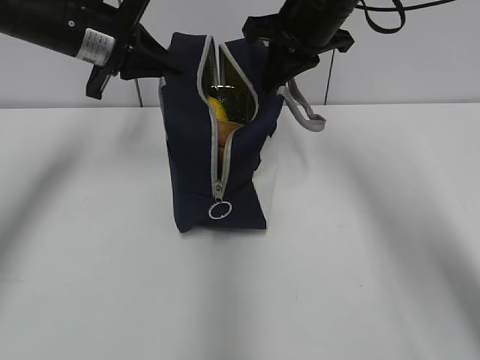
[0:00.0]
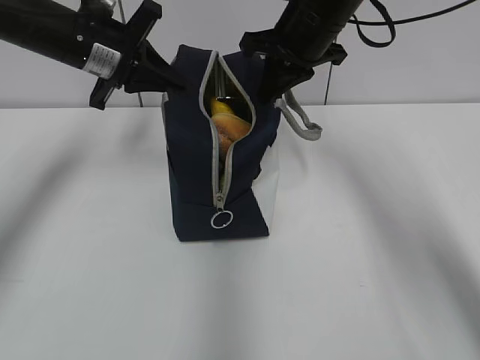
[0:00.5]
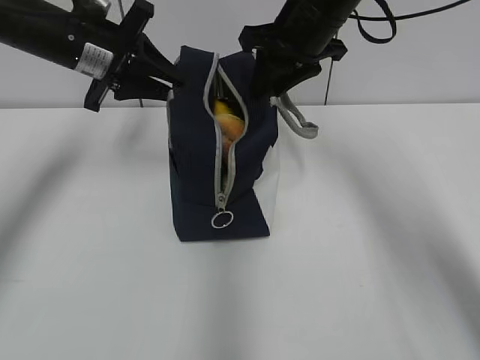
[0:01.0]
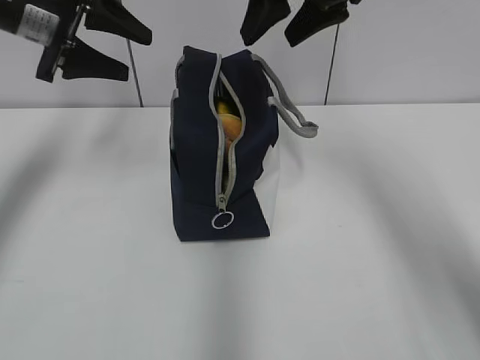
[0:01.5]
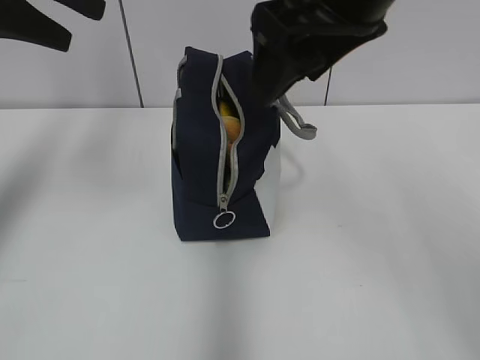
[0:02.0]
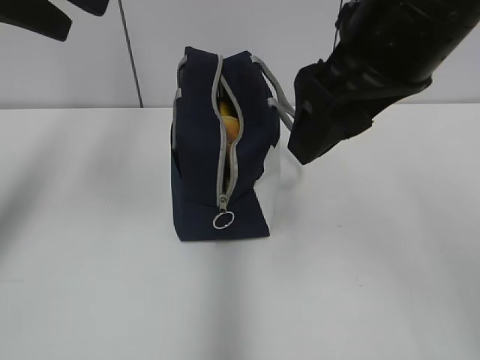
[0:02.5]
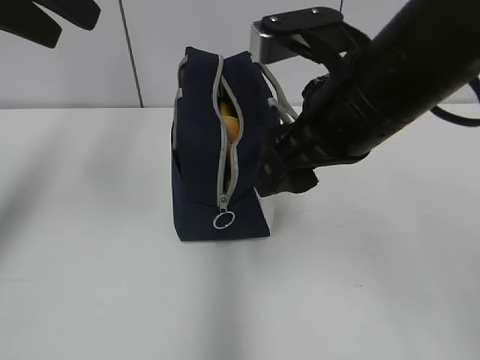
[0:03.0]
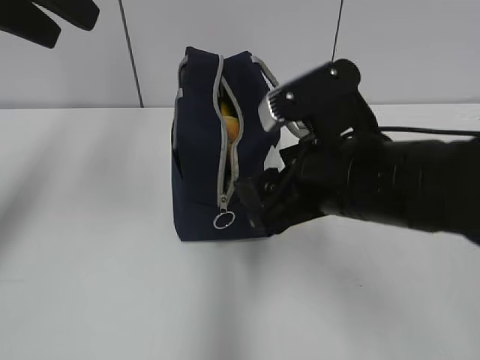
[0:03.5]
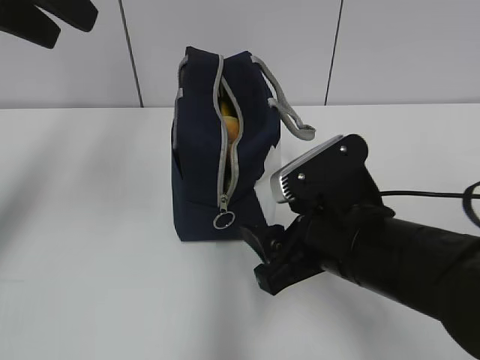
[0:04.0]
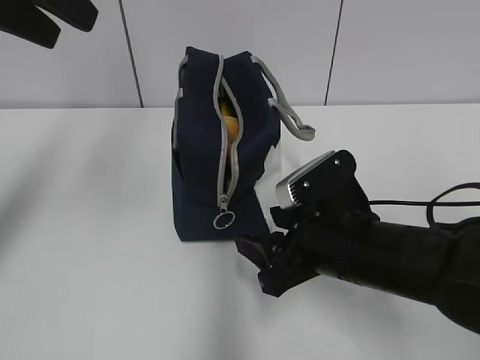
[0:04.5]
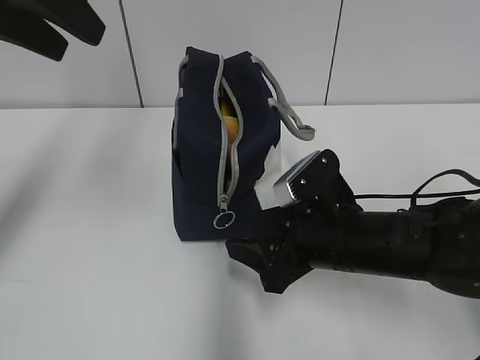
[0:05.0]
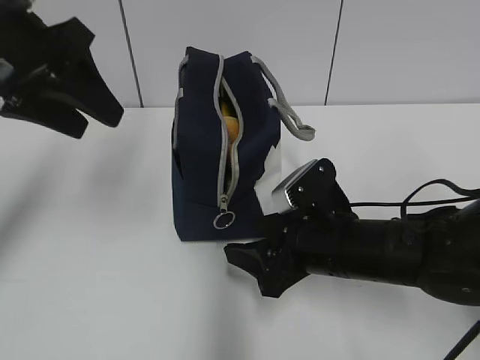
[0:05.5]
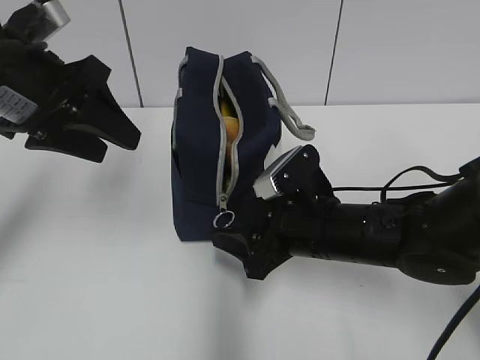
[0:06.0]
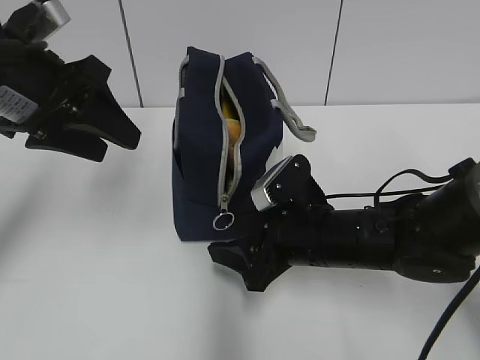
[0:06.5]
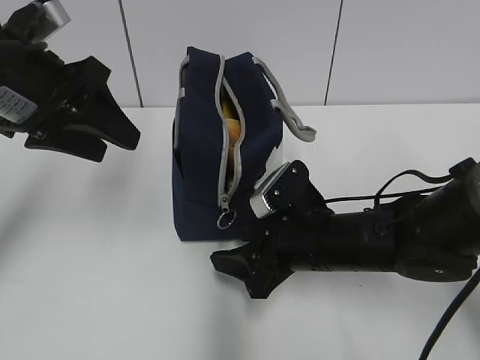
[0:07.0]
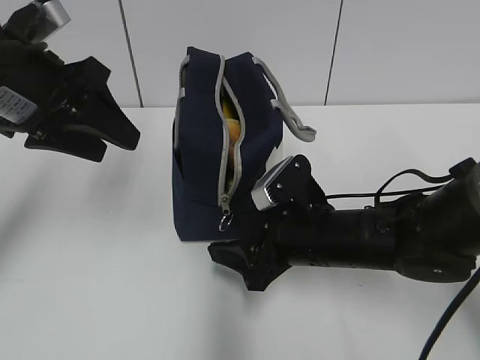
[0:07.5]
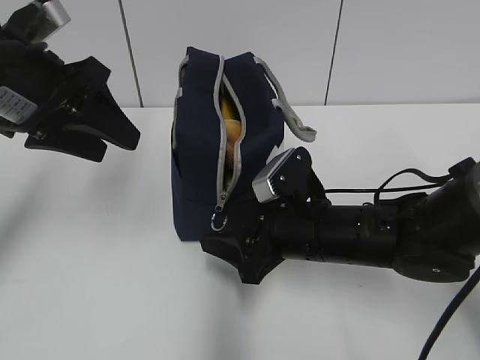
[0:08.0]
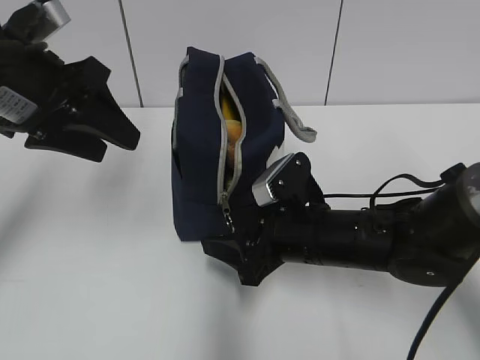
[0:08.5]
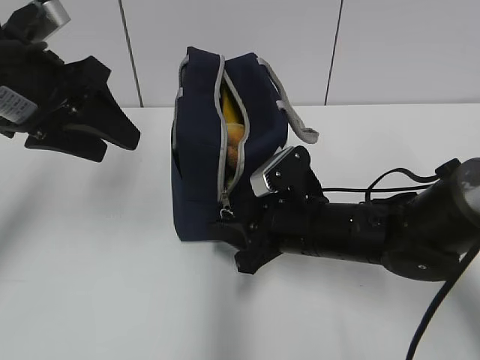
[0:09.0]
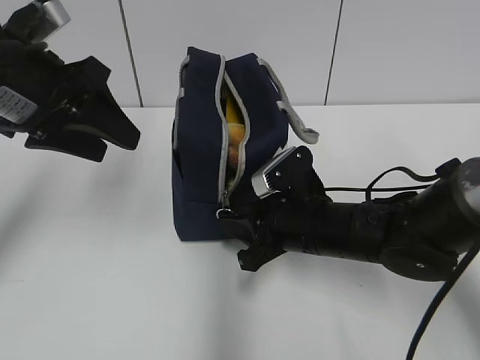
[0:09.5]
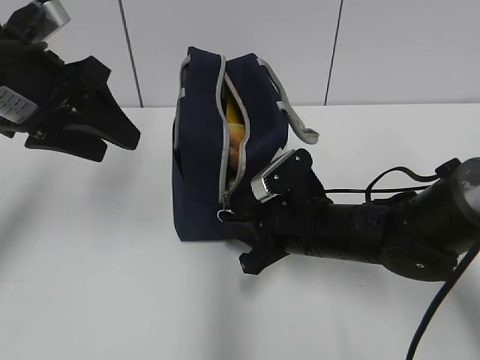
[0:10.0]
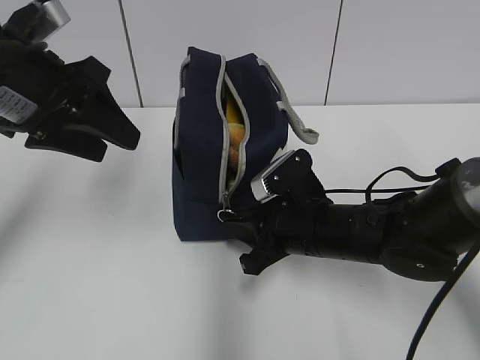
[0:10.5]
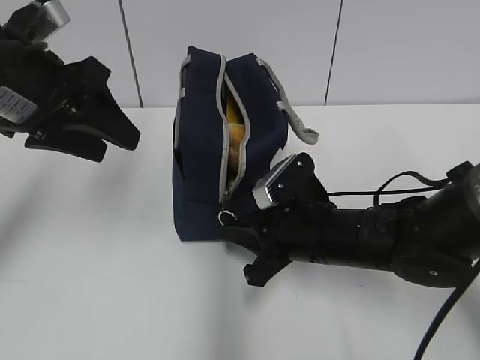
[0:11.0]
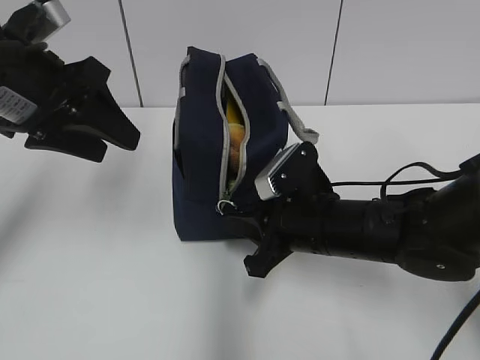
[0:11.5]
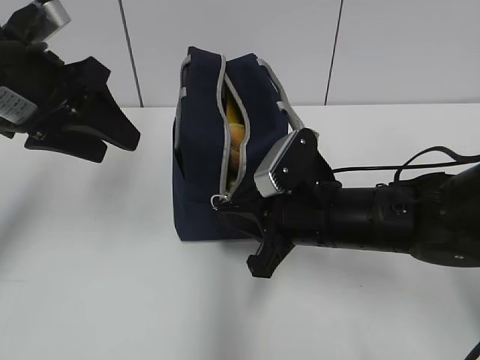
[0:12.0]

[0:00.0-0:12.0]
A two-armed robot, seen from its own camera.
0:00.0 to 0:02.0: The right gripper goes approximately 15 cm backward and upward, and opens its fingers; the left gripper moves upward, backward and to the left, approximately 15 cm, and opens.
0:02.0 to 0:04.0: The right gripper travels downward by roughly 20 cm; the left gripper shifts by some 5 cm.
0:04.0 to 0:06.0: The right gripper is displaced forward and downward by about 10 cm, while the left gripper is displaced downward by roughly 10 cm.
0:06.0 to 0:08.0: There are only small adjustments of the grippers.
0:08.0 to 0:10.0: The right gripper closes up.
0:10.0 to 0:12.0: There are only small adjustments of the grippers.

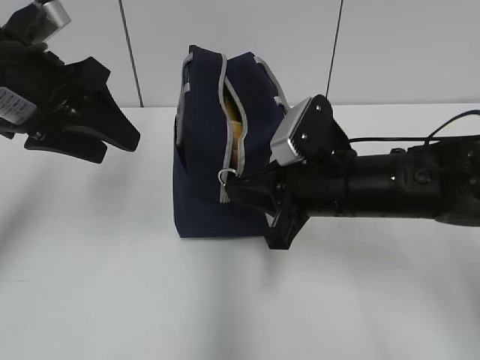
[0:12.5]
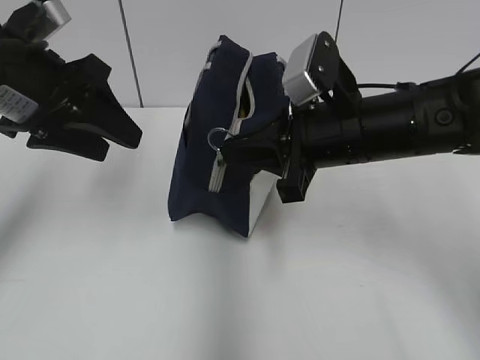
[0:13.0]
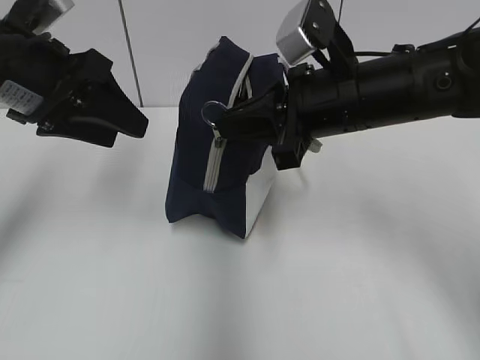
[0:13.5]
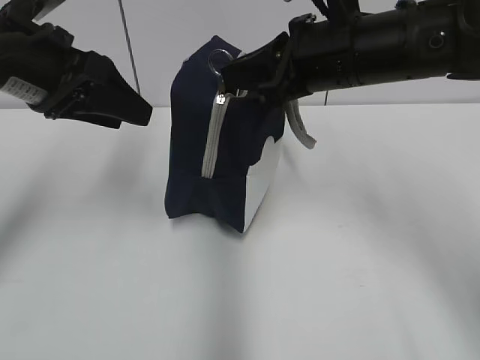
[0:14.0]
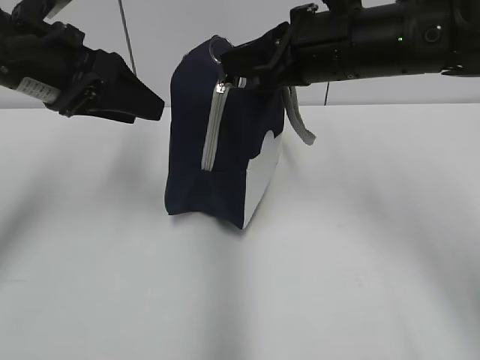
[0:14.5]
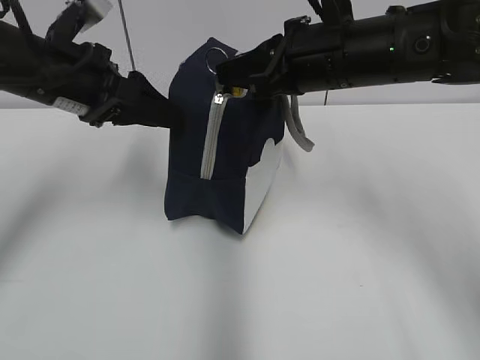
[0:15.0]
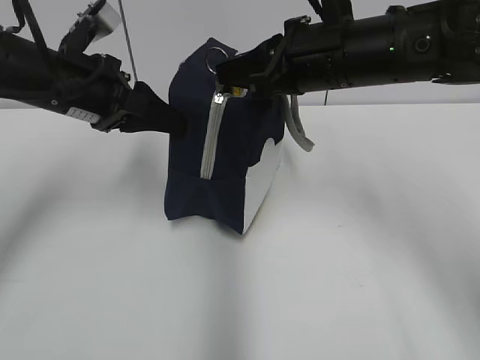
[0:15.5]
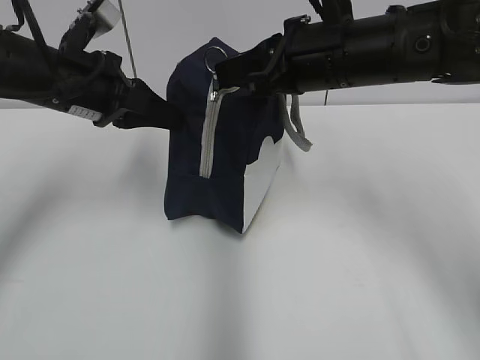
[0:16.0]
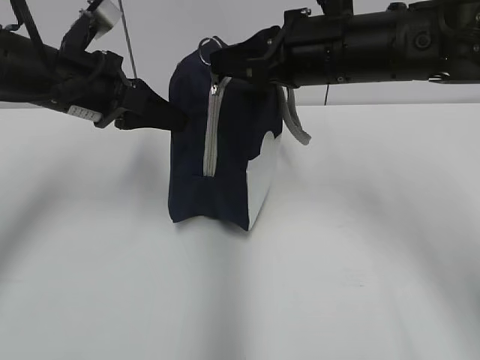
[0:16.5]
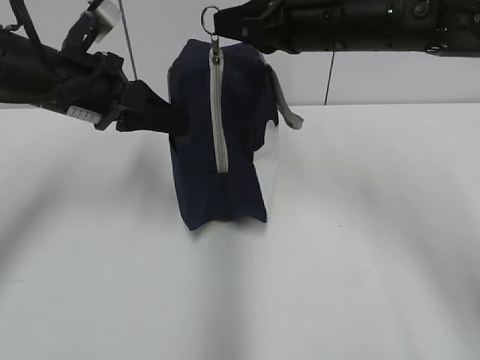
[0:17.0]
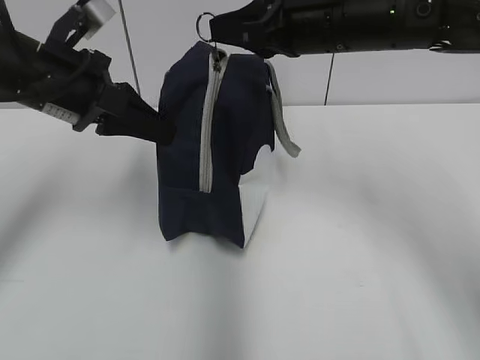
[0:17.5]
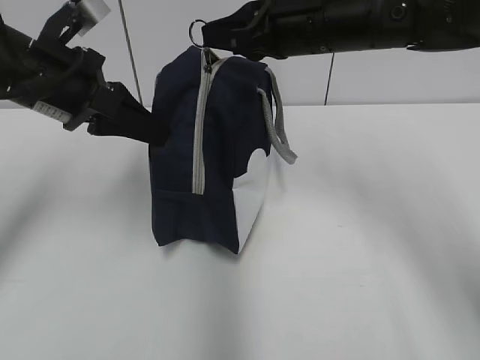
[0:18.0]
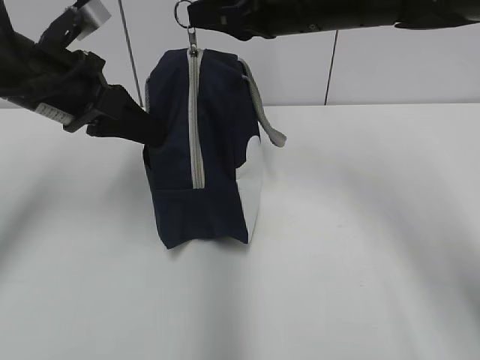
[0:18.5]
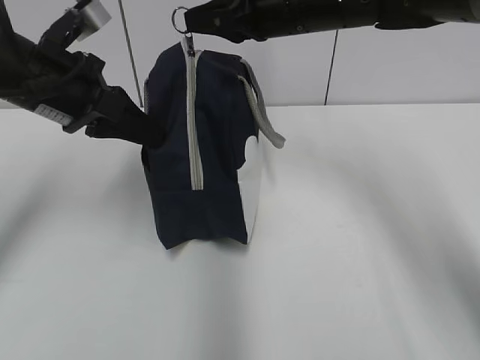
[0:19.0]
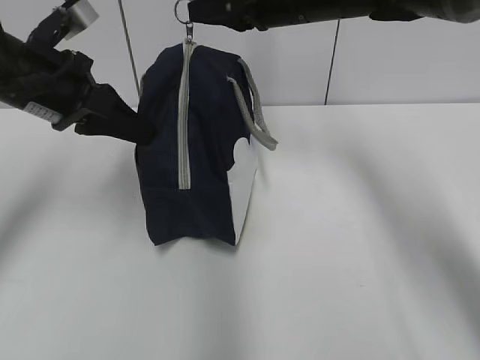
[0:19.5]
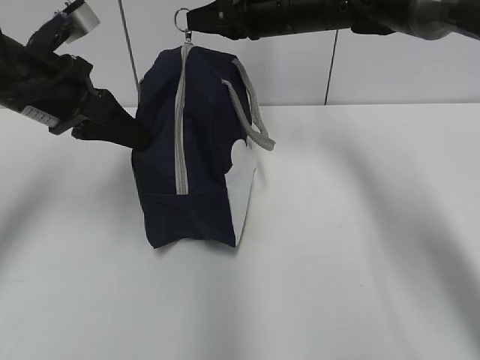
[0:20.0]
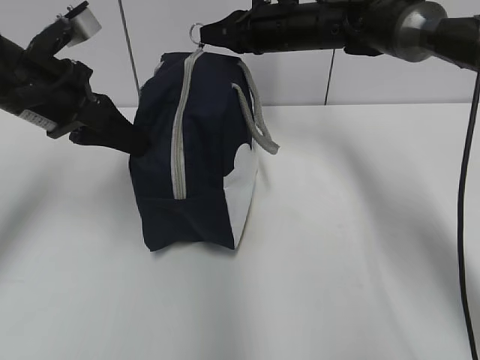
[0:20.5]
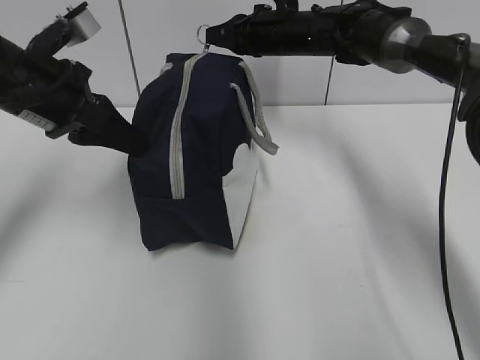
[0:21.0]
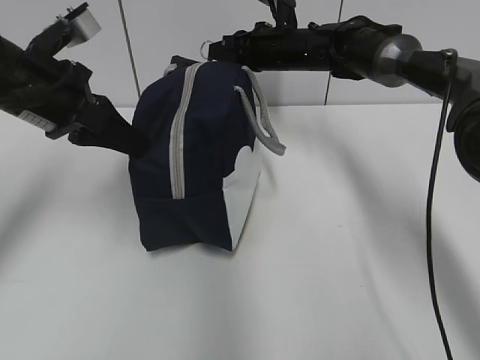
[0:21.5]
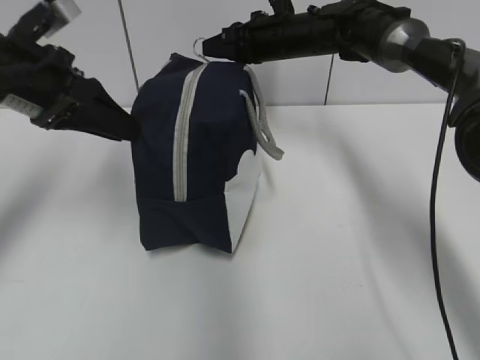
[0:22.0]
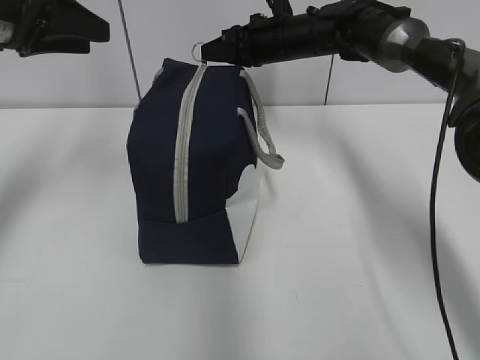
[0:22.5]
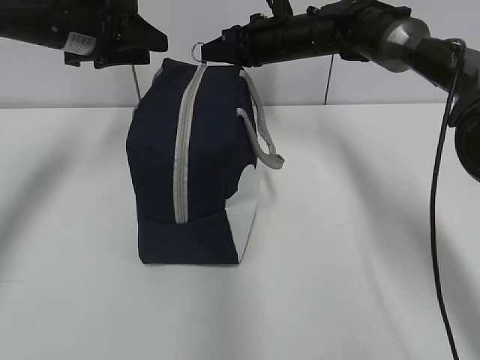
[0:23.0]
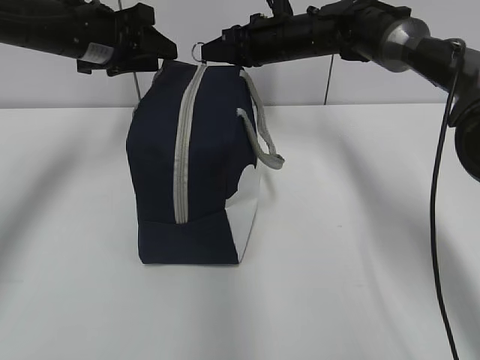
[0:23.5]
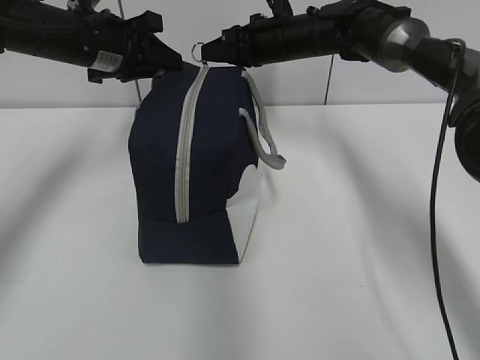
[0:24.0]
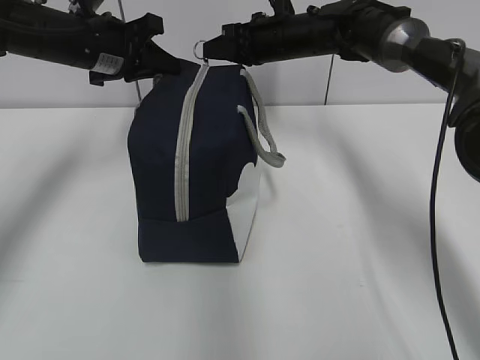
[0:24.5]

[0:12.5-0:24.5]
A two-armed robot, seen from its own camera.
Step, 0:12.5 to 0:21.5: Grab the lunch bag with your left hand.
0:12.5 to 0:14.5: The right gripper is displaced upward and forward by some 15 cm.
0:14.5 to 0:16.5: The left gripper changes place by approximately 5 cm, and closes up.
0:16.5 to 0:18.5: The right gripper changes place by some 5 cm.
0:18.5 to 0:20.5: The right gripper is displaced forward and downward by approximately 15 cm.
0:20.5 to 0:22.5: The left gripper moves upward, some 5 cm, and opens up.
0:22.5 to 0:24.5: The left gripper travels forward, downward and to the right by about 15 cm, and closes its fingers.

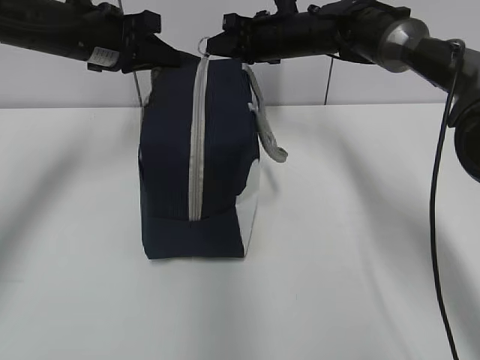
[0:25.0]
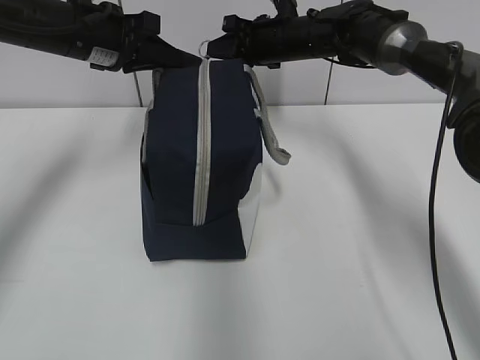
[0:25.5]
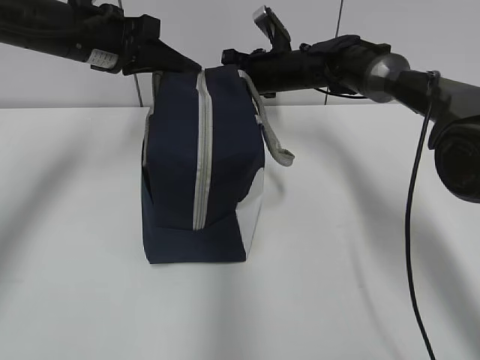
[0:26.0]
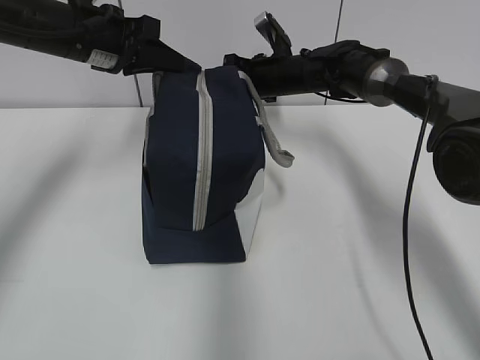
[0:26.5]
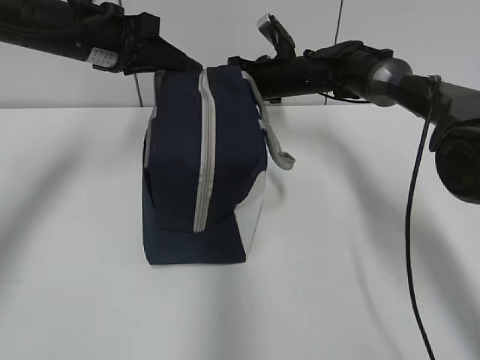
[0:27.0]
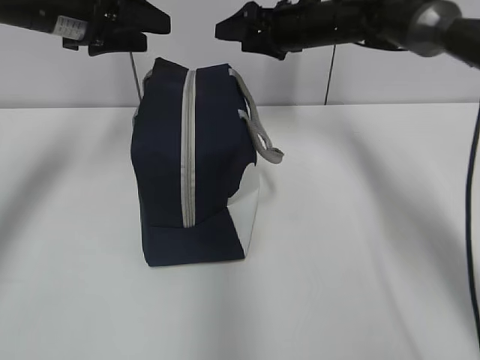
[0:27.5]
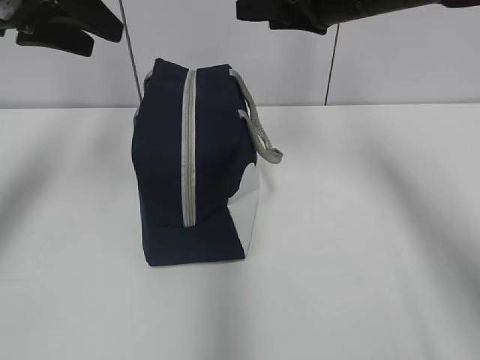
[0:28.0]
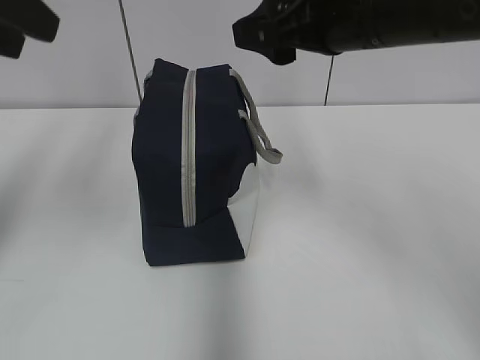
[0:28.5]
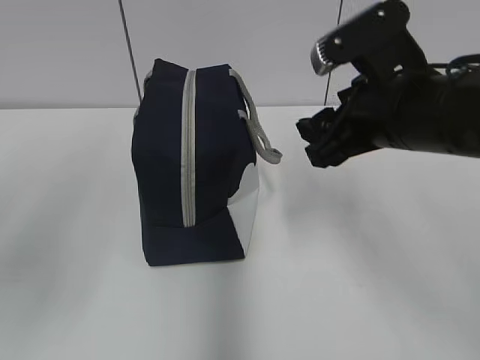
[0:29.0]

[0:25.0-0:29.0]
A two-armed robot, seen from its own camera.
Step, 0:25.0 to 0:27.0: Pull the zipper with your right hand.
0:25.0 to 0:27.0: The right gripper heads downward, covering some 5 cm.
0:27.0 to 0:29.0: Both grippers travel together backward, about 30 cm. The left gripper opens up. Meanwhile the right gripper opens up.
